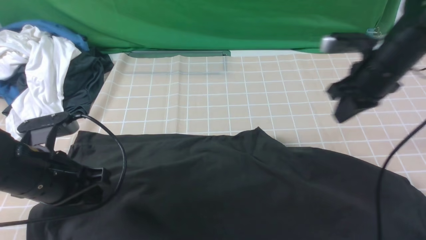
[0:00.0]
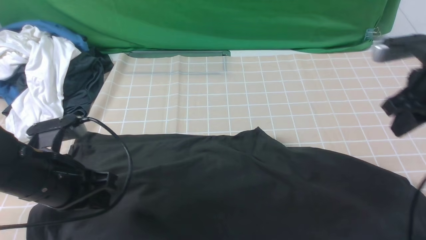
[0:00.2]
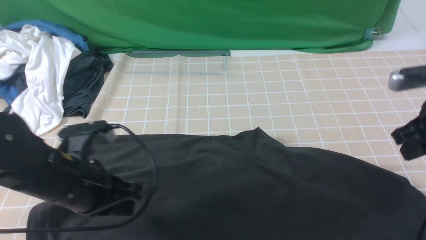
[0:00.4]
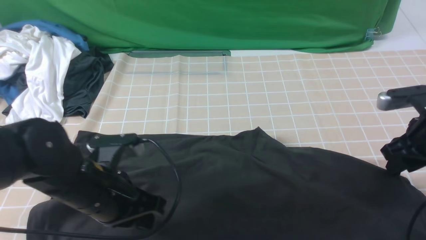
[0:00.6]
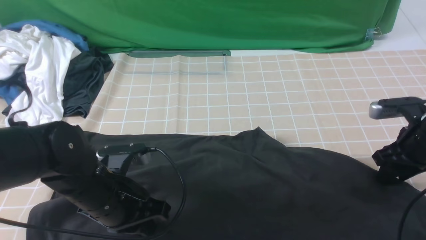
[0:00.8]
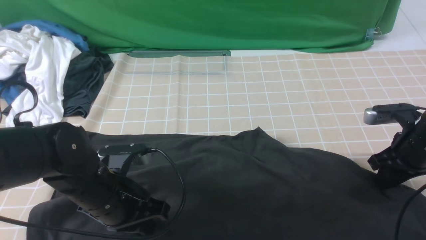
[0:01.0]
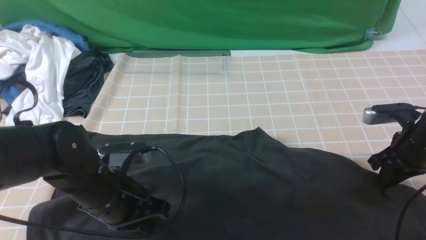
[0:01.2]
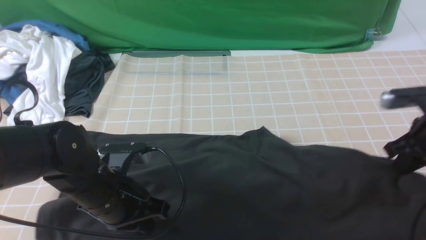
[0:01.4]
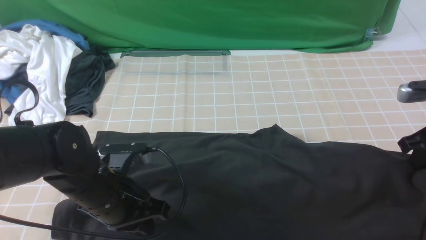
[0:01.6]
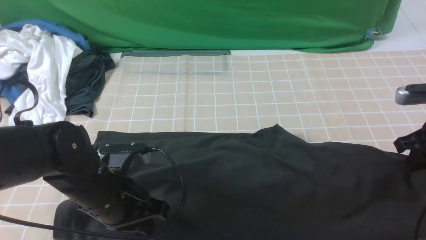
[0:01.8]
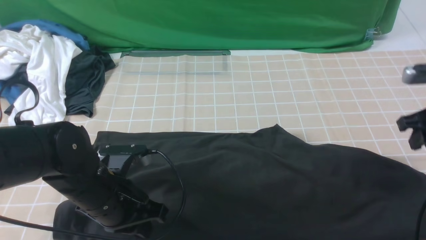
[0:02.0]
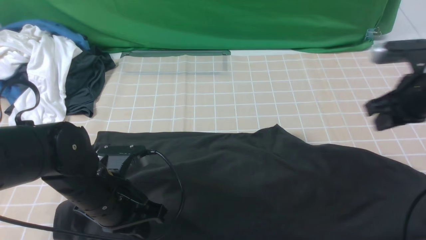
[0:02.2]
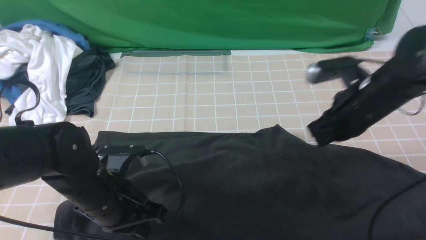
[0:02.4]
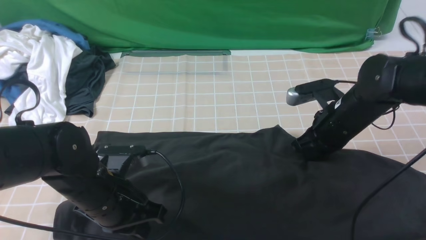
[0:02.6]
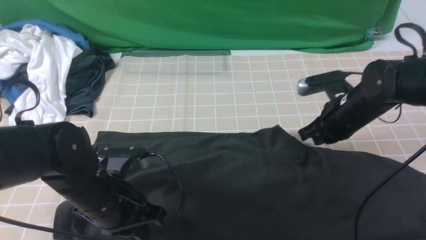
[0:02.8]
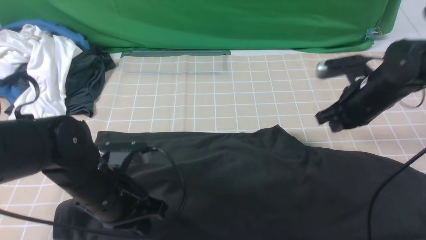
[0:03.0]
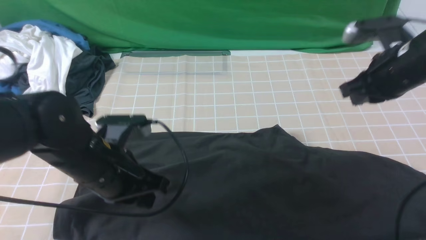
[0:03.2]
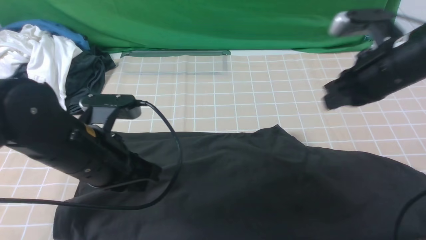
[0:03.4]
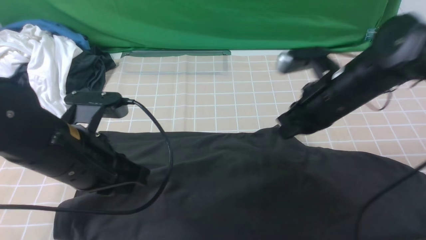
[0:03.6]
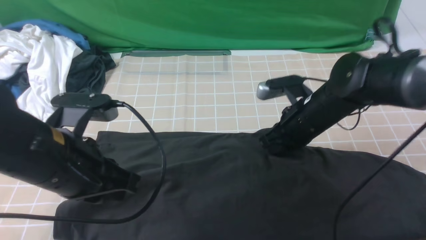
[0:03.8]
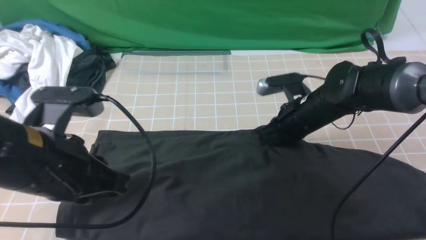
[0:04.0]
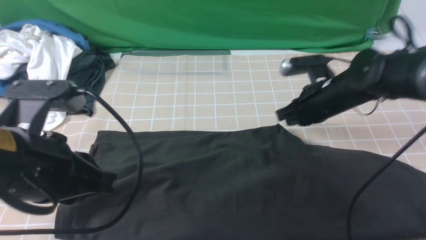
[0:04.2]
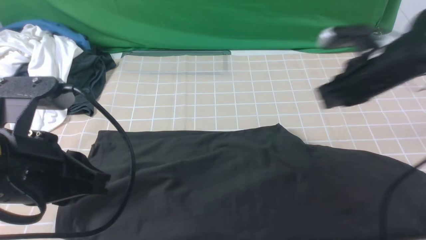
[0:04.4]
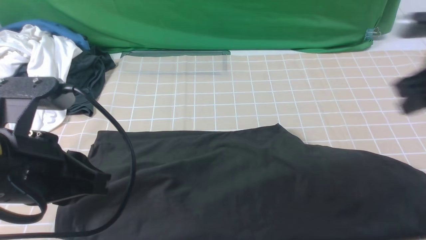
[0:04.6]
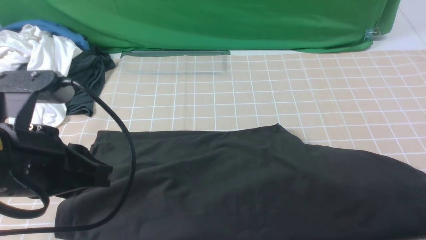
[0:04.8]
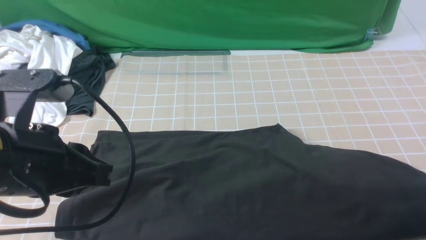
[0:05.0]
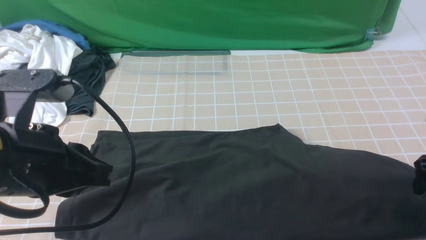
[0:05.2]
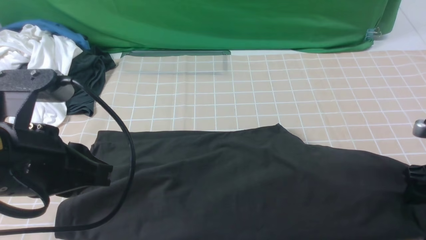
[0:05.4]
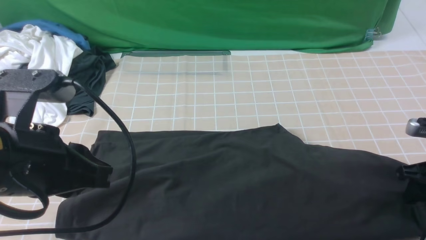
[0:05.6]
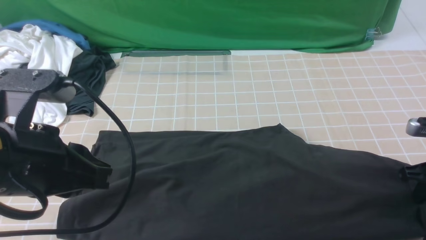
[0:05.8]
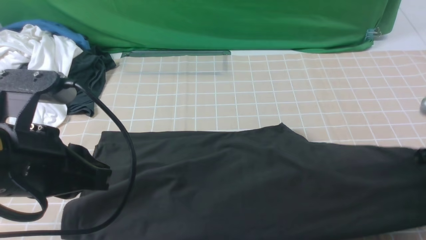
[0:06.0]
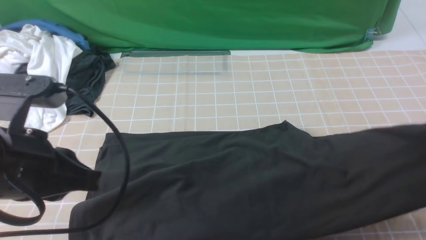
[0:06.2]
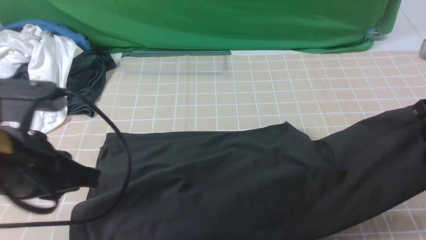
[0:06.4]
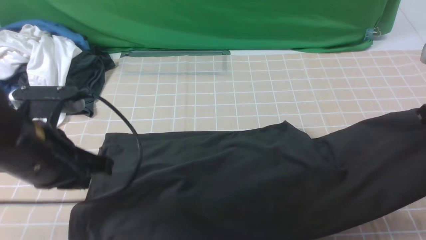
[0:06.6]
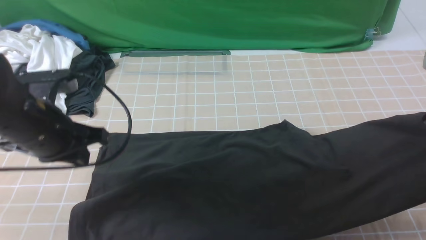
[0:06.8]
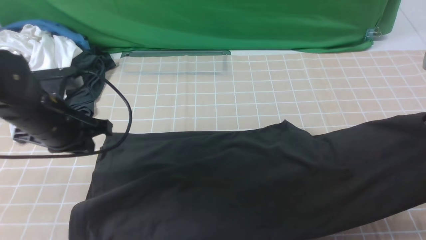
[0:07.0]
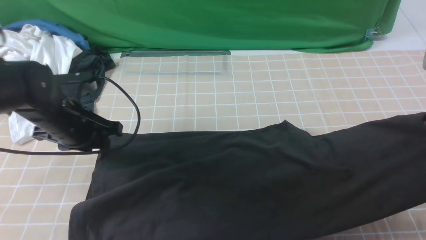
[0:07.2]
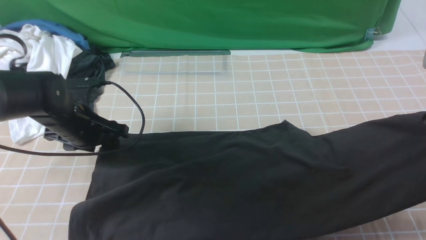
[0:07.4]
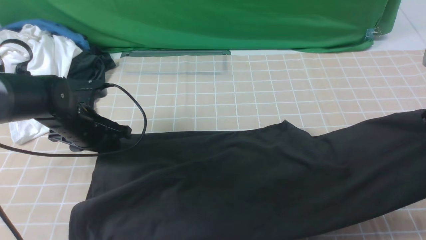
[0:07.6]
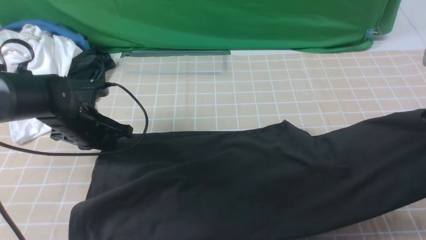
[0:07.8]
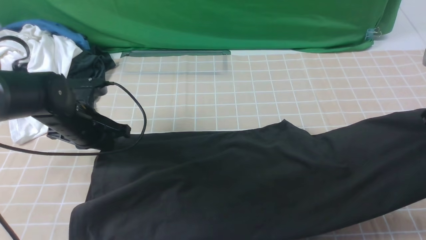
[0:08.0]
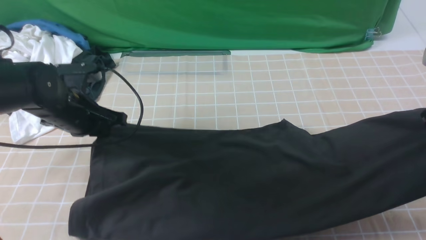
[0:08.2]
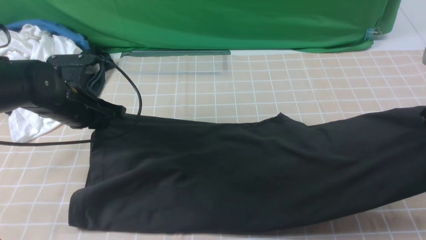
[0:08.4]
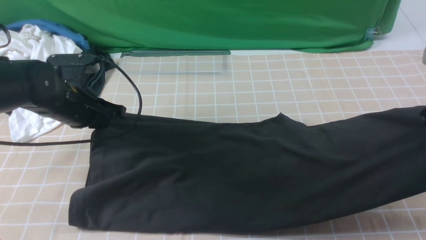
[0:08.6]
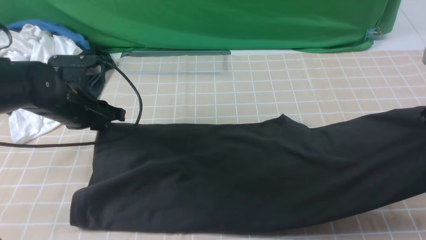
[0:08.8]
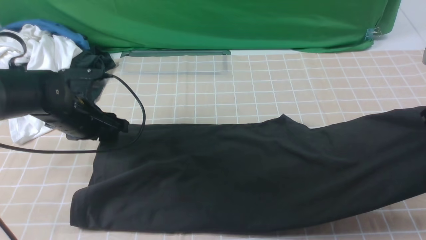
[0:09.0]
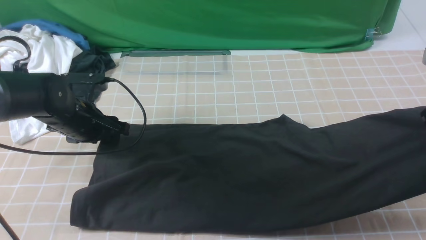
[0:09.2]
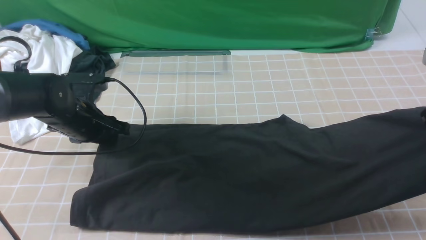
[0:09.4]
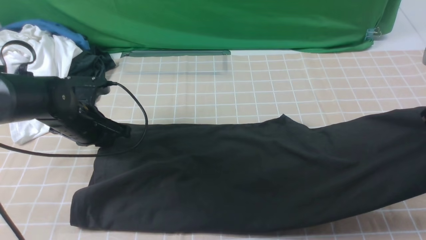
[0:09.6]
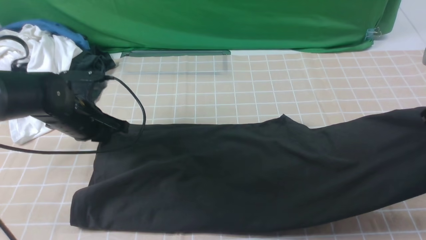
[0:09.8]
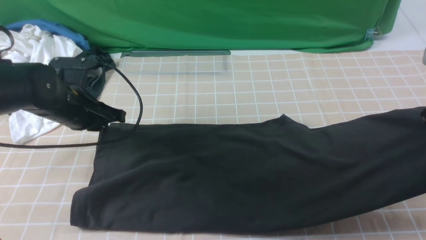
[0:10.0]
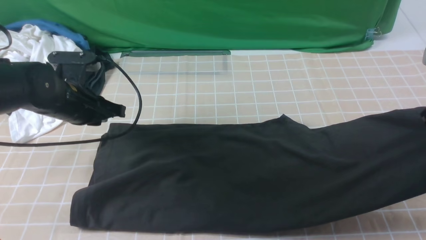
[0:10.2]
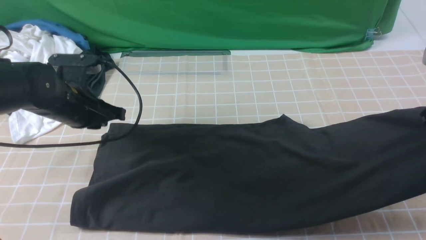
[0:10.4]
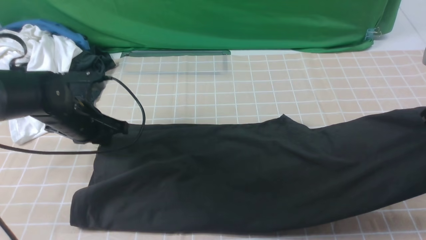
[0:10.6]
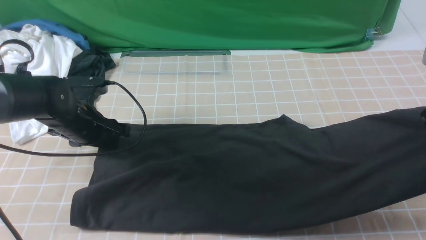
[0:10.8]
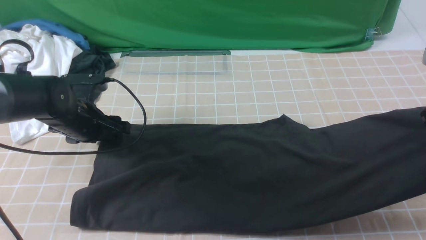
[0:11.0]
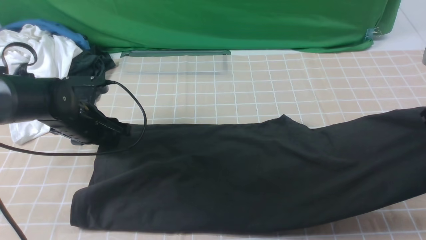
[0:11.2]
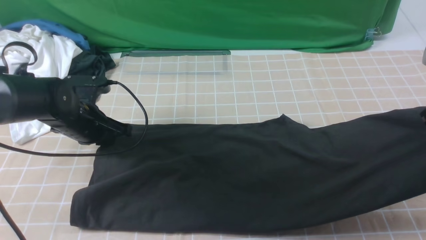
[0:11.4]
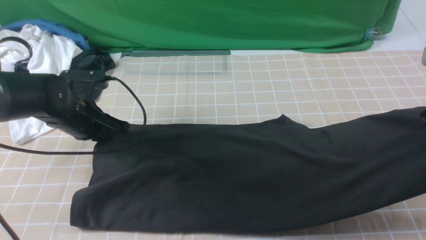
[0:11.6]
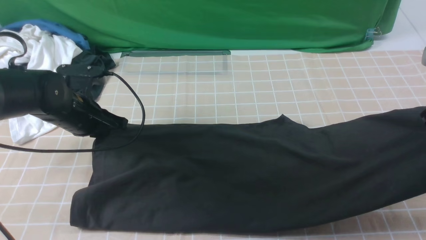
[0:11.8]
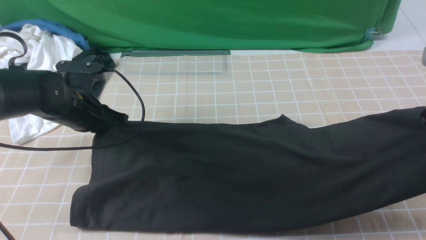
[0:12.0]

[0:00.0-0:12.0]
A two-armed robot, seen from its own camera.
Step, 0:00.0 to 0:05.6: use the right arm to clamp the right edge of the fabric.
0:00.0 to 0:01.6: The right gripper heads to the right and backward, covering approximately 10 cm, and opens and closes again, while the left gripper moves to the right, some 5 cm.
0:01.6 to 0:03.0: The right gripper heads to the left and forward, covering some 10 cm.
0:03.0 to 0:04.4: The right gripper reaches roughly 10 cm to the left, then returns; the left gripper is displaced upward and backward by roughly 15 cm.
0:04.4 to 0:06.0: The right gripper moves to the right and backward, roughly 15 cm, goes downward and returns, some 10 cm each way, and opens and closes again.
0:06.0 to 0:07.6: The left gripper travels forward and downward by about 25 cm, and opens its fingers, while the right gripper heads upward, covering about 5 cm.
0:07.6 to 0:09.0: The left gripper closes, then opens again.
0:09.0 to 0:10.4: The left gripper closes its fingers.
0:10.4 to 0:12.0: The left gripper opens, then closes once more.

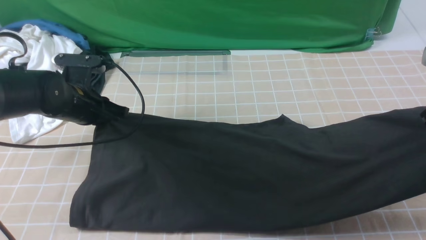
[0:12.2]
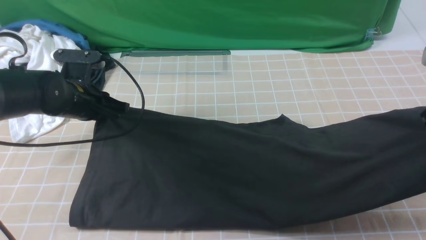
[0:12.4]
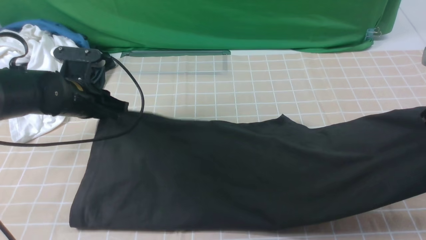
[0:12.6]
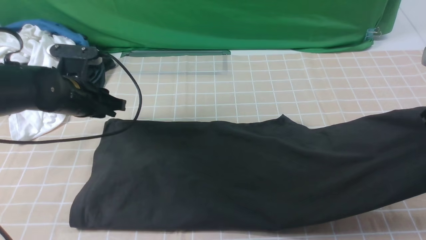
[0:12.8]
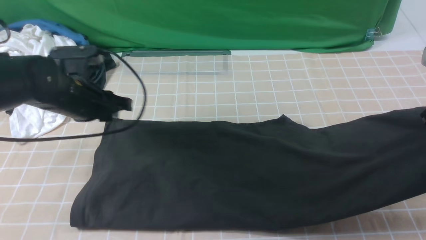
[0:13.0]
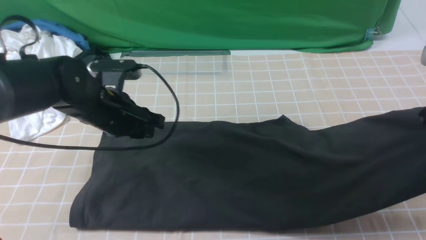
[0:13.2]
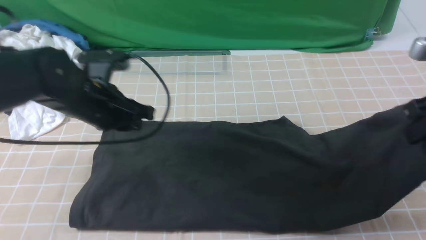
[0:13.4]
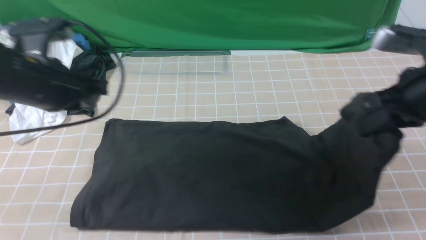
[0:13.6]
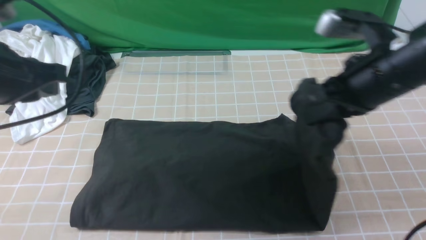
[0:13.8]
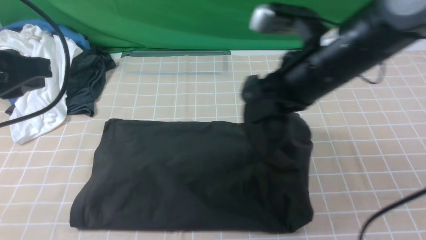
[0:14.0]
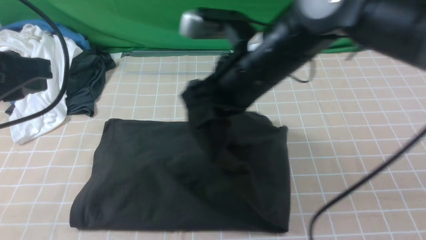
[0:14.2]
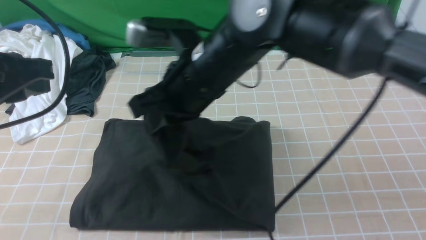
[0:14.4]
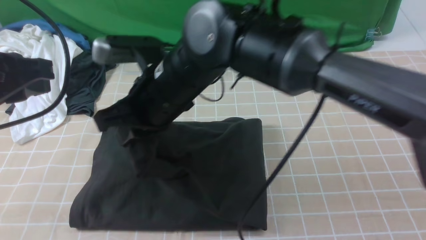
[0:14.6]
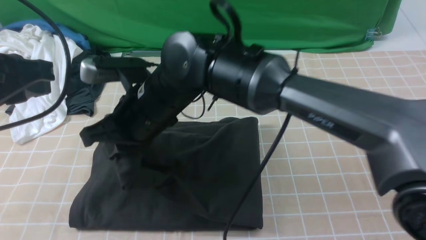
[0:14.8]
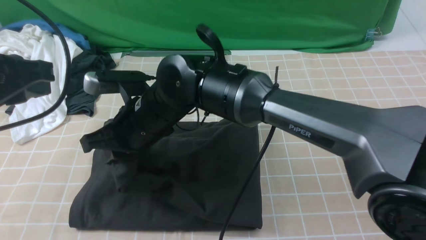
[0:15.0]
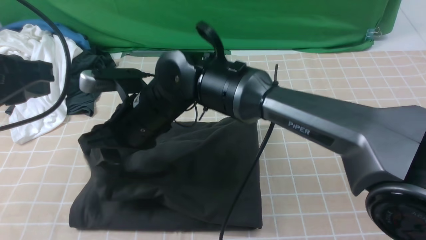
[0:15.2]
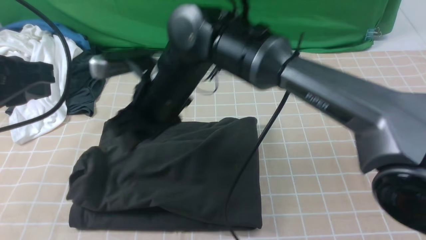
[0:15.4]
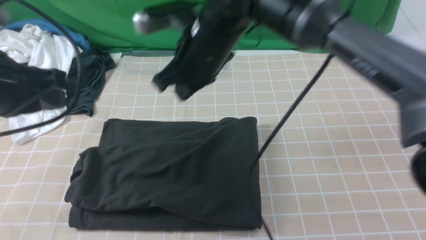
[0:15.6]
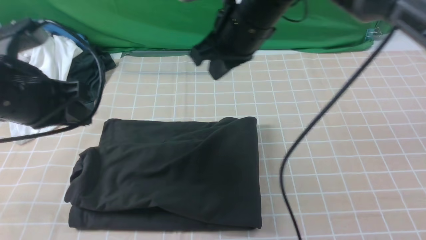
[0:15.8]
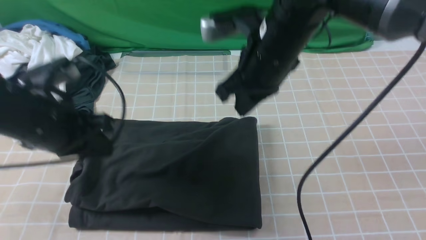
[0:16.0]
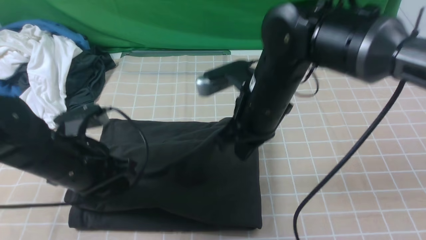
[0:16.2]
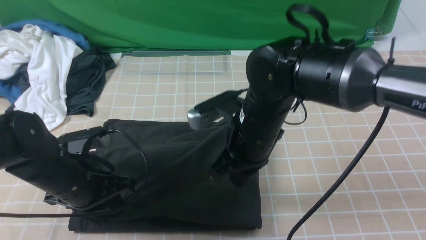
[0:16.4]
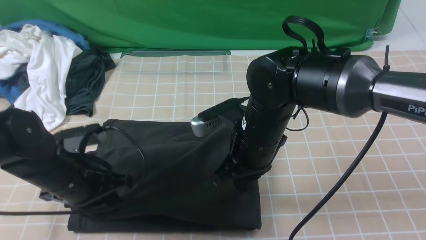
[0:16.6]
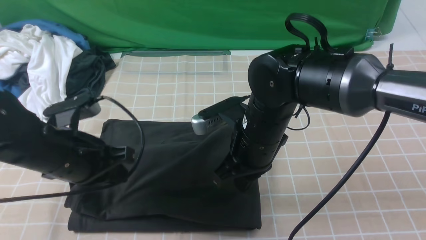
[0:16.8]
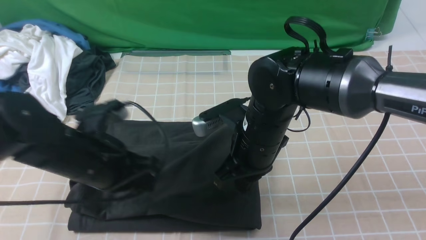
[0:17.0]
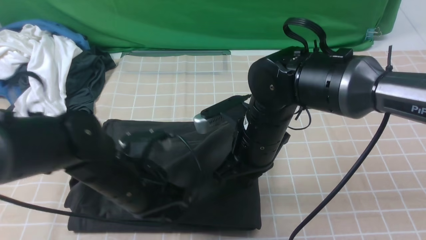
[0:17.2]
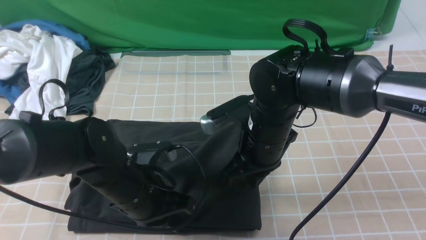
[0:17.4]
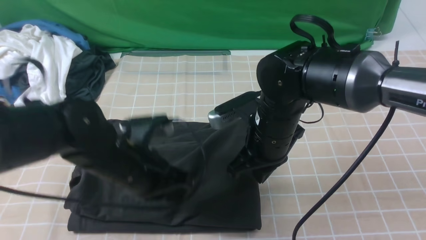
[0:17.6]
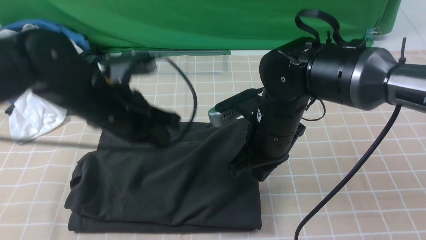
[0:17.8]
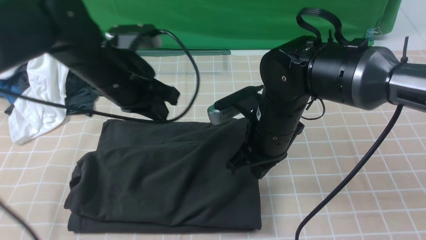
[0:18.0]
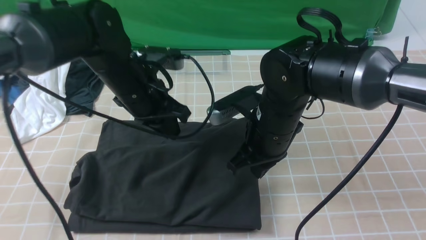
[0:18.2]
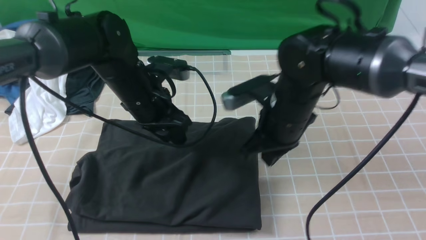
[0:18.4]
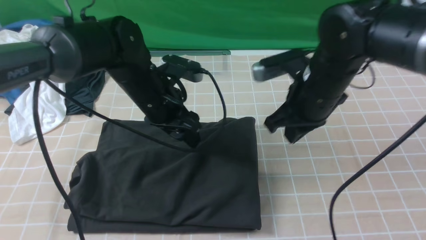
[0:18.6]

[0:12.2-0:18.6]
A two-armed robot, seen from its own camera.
Step, 0:12.2 to 0:15.4: use the right arm to drag the right edge of the fabric to the left and folds it over the left edge.
0:12.2 to 0:13.8: The left gripper is displaced upward and backward by roughly 20 cm. Meanwhile the right gripper heads to the left, covering approximately 15 cm.
0:13.8 to 0:15.4: The right gripper shifts about 25 cm to the left, and opens.
0:15.4 to 0:17.0: The right gripper goes about 15 cm to the right, downward and backward, and closes its fingers; the left gripper is displaced downward and to the right by roughly 20 cm.
0:17.0 to 0:18.6: The right gripper shifts approximately 10 cm to the right, while the left gripper heads forward and to the right, covering some 15 cm, and opens.
